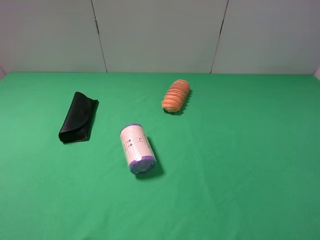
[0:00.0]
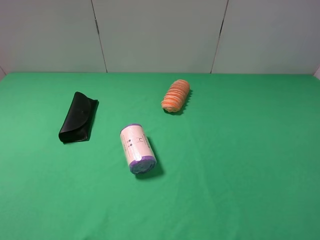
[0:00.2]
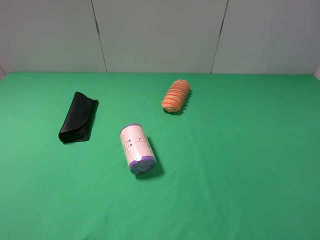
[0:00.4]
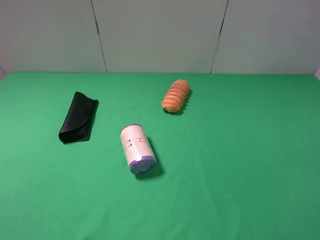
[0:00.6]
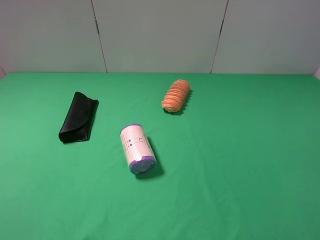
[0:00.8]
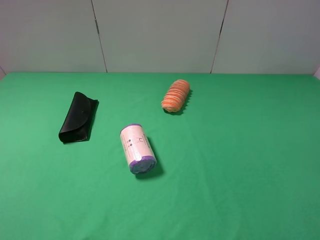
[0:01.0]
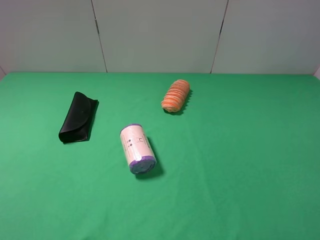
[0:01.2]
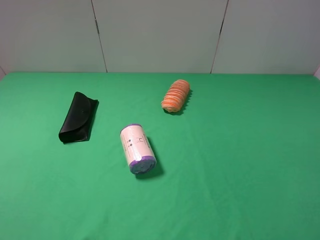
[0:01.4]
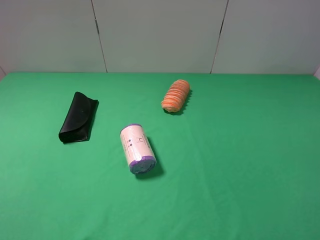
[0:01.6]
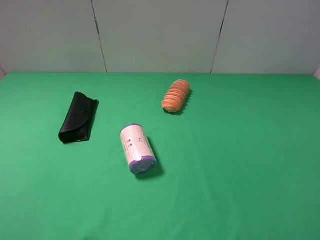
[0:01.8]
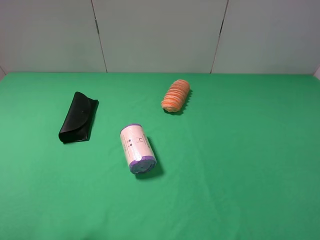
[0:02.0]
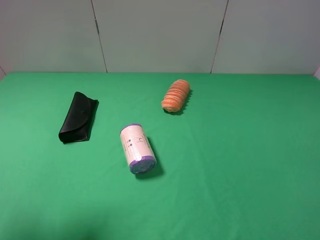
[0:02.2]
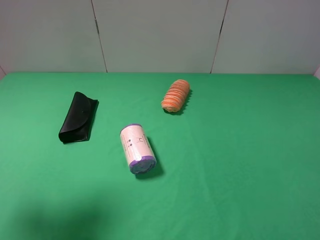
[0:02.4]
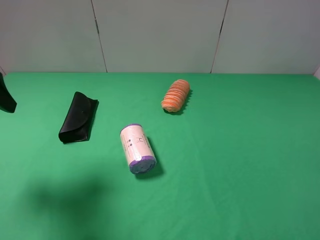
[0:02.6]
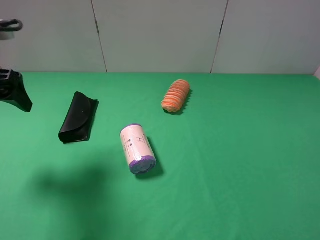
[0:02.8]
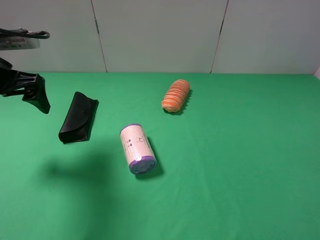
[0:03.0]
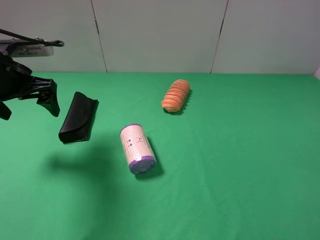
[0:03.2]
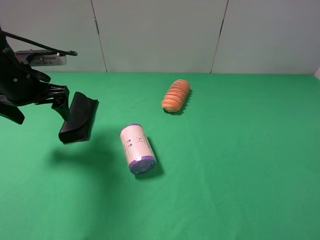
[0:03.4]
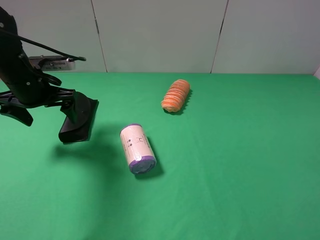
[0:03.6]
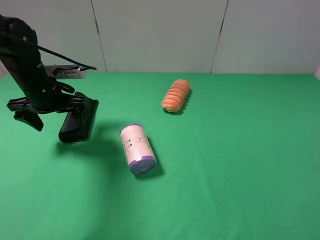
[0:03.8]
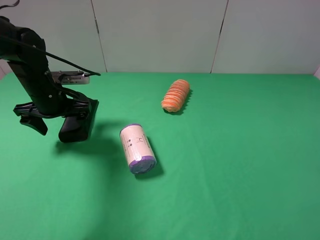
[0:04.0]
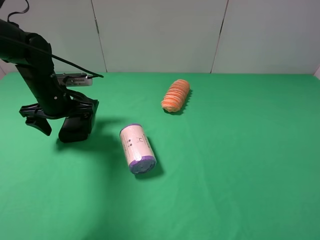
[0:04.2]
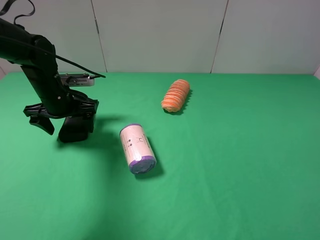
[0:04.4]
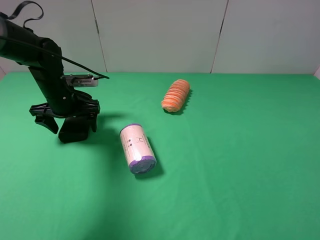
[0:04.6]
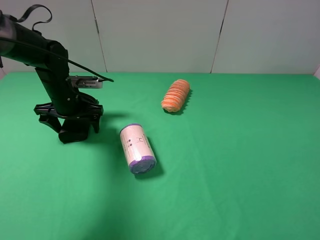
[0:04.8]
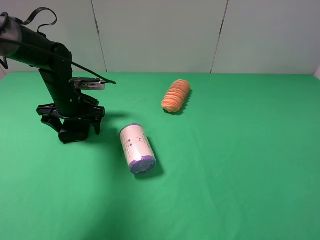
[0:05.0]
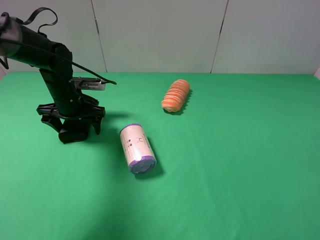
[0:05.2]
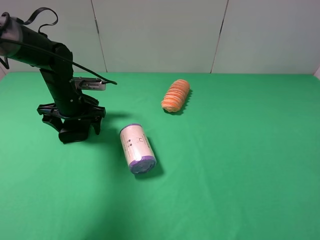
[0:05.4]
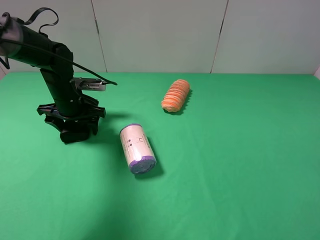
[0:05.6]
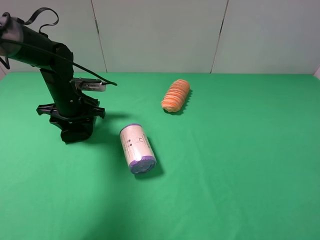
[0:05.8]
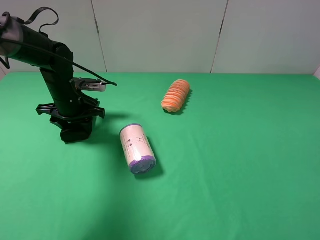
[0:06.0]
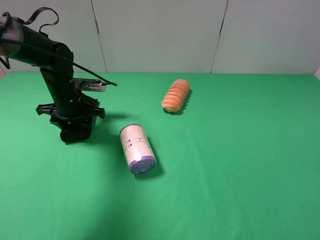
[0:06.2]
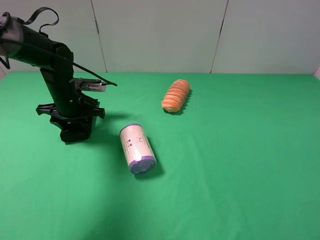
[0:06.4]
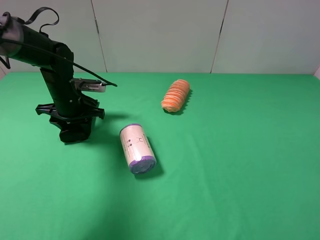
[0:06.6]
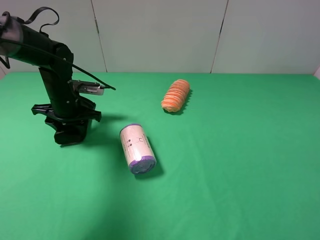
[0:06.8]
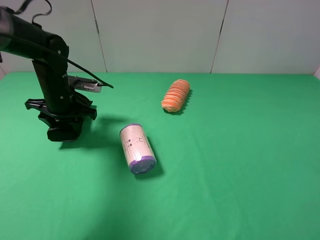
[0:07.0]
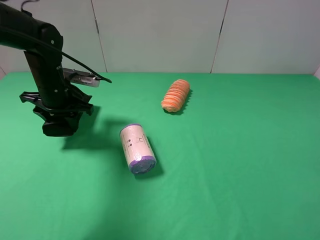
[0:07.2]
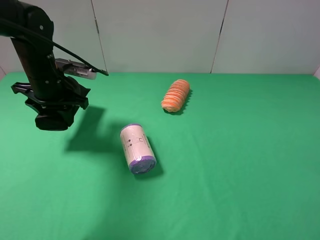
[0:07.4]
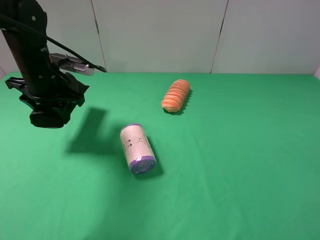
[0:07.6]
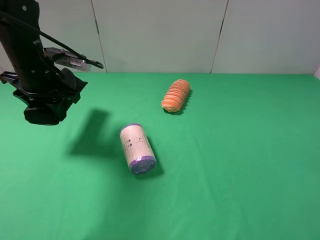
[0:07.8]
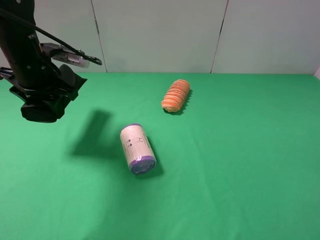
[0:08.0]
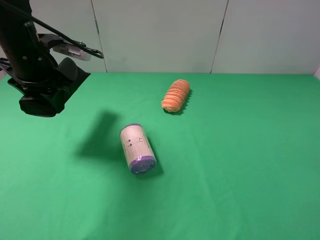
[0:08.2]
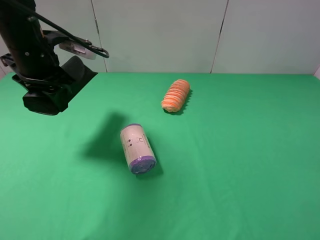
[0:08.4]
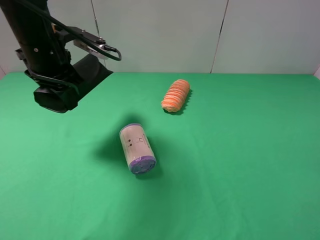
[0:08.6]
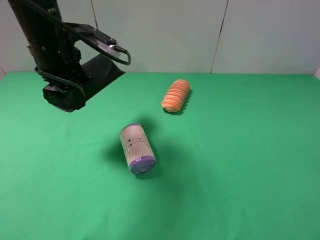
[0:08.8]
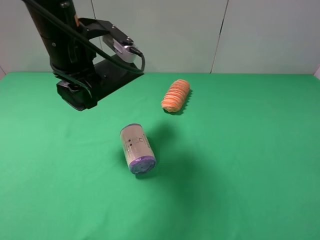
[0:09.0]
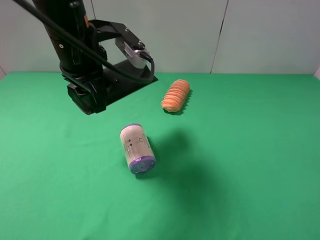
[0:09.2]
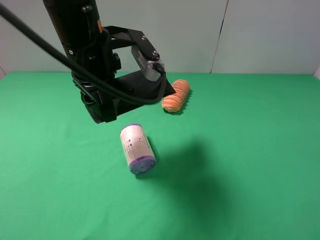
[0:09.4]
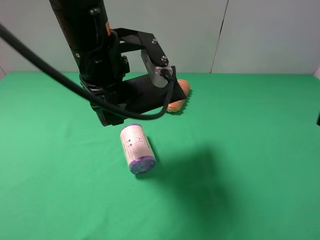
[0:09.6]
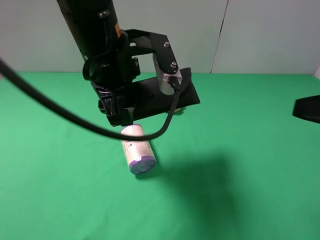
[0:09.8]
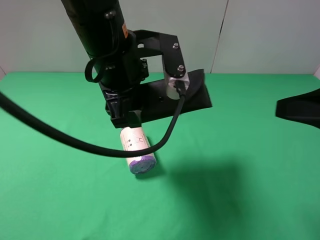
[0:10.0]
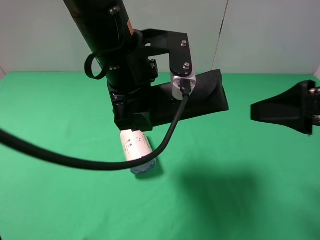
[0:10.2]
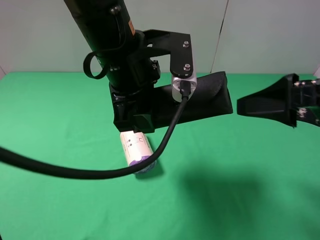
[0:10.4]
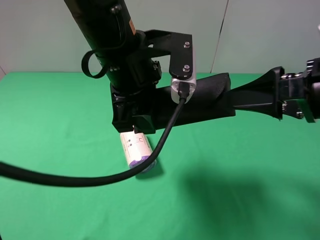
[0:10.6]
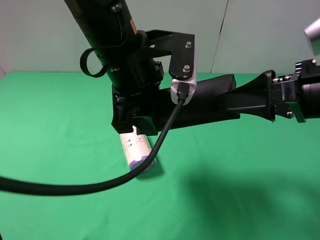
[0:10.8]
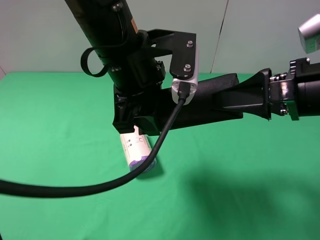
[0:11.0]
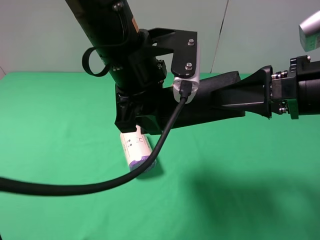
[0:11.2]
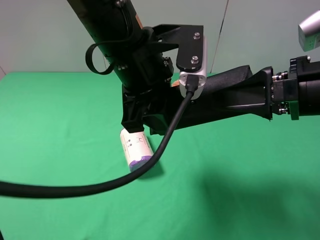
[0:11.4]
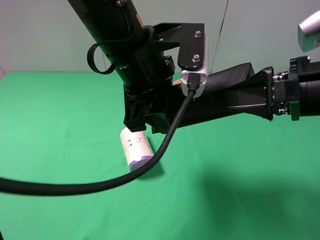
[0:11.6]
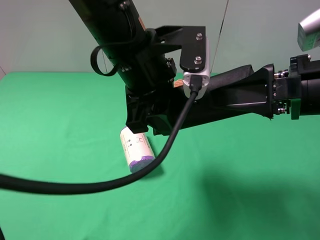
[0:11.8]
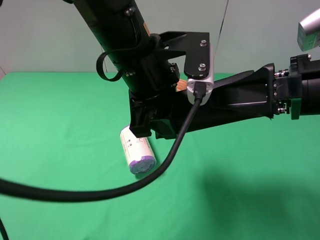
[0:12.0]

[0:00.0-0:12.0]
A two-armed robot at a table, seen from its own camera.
Task of the whole recording: use the left gripper to pick up the item and transfer it from the left gripper to the right gripper.
Step, 0:00.0 to 0:05.8: Use the left gripper to grab the eyeglass case on the left side of the table.
0:01.6 to 0:03.0: The left gripper moves forward, some 25 cm.
0:03.0 to 0:04.4: The left gripper moves downward, forward and to the right, some 15 cm.
0:04.4 to 0:06.0: The left gripper closes its fingers.
0:06.0 to 0:07.6: The left gripper goes some 10 cm upward.
0:07.6 to 0:09.0: The left gripper heads to the right and upward, covering approximately 10 cm.
0:09.0 to 0:10.4: The left gripper heads to the right and backward, covering roughly 10 cm. The right gripper is displaced forward by approximately 15 cm.

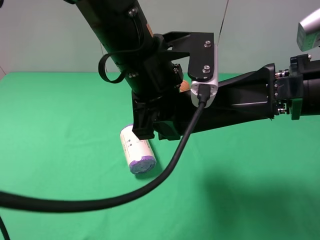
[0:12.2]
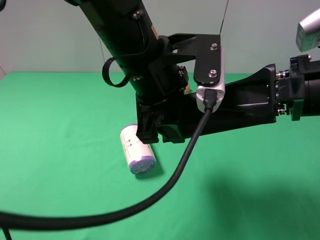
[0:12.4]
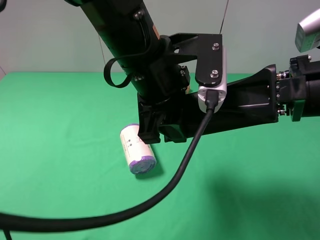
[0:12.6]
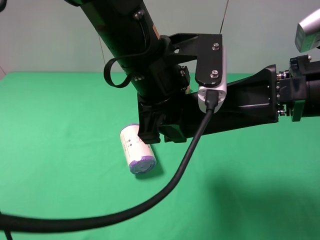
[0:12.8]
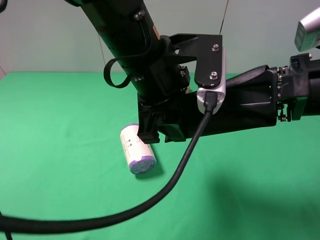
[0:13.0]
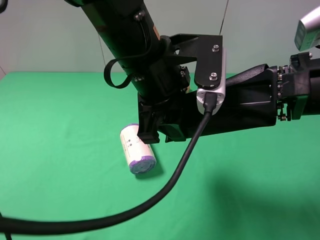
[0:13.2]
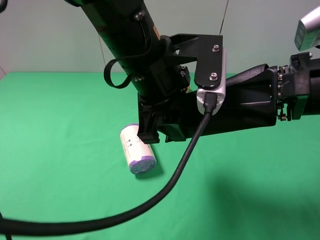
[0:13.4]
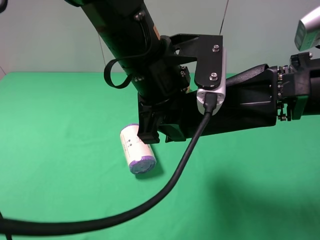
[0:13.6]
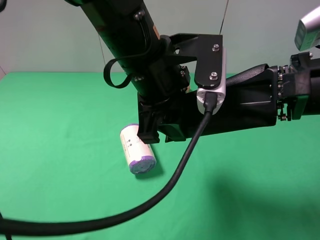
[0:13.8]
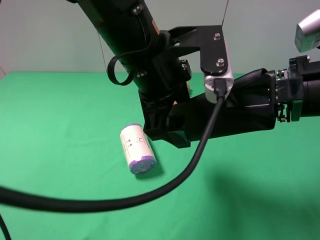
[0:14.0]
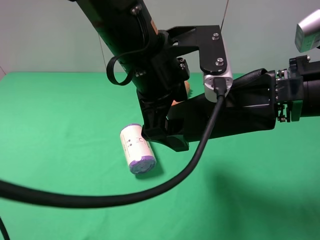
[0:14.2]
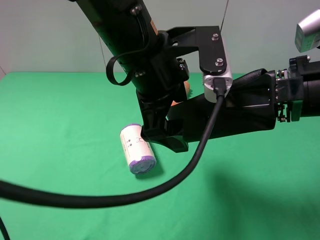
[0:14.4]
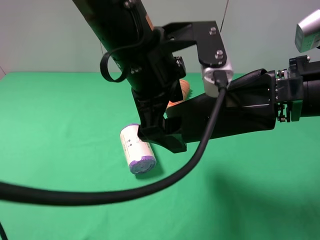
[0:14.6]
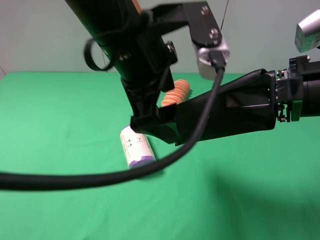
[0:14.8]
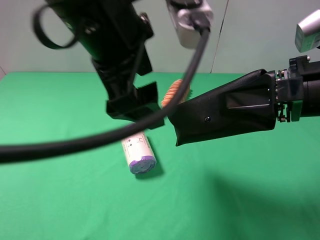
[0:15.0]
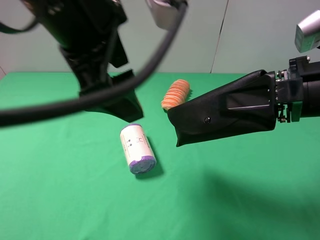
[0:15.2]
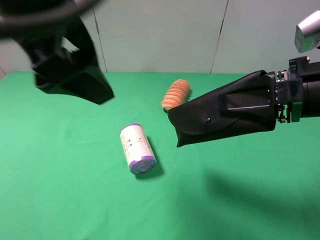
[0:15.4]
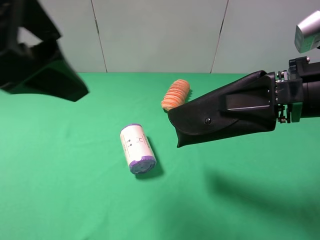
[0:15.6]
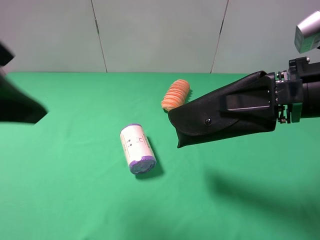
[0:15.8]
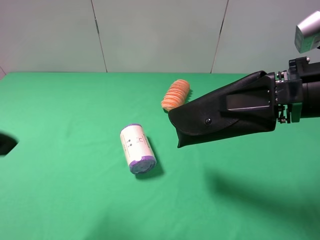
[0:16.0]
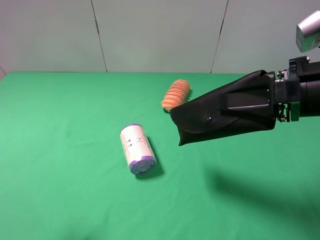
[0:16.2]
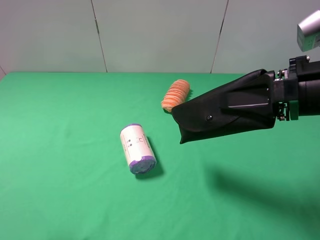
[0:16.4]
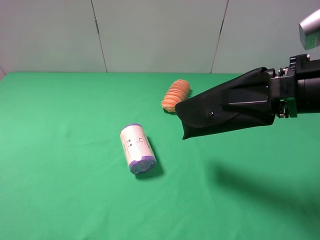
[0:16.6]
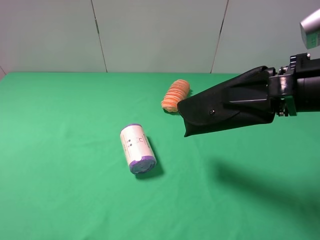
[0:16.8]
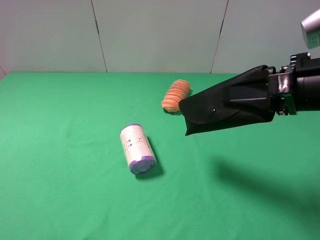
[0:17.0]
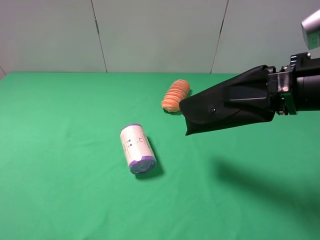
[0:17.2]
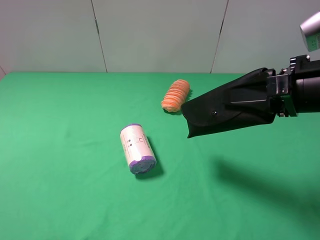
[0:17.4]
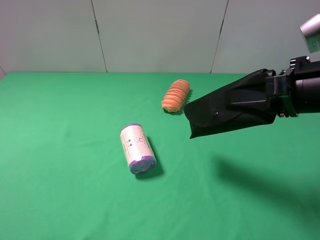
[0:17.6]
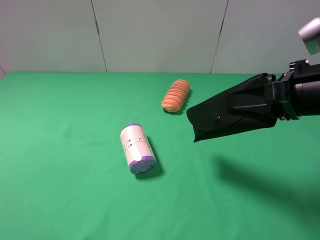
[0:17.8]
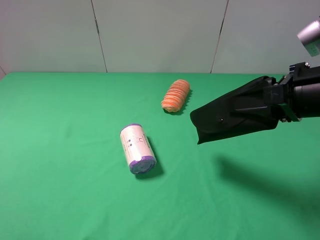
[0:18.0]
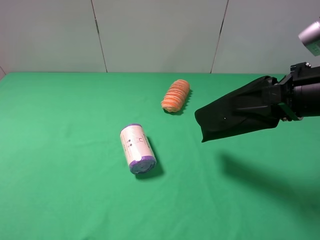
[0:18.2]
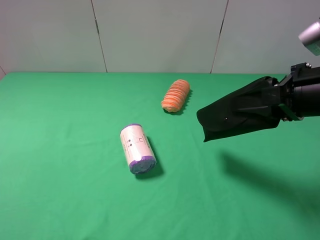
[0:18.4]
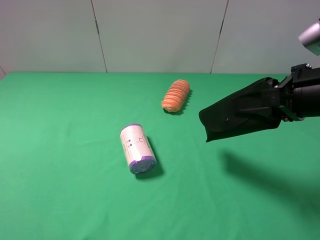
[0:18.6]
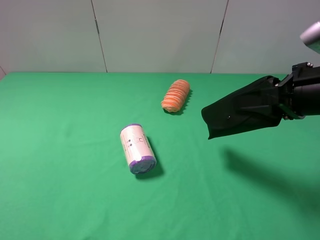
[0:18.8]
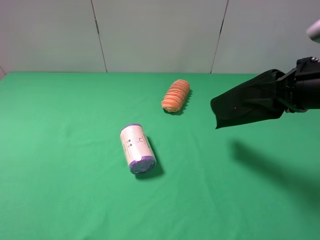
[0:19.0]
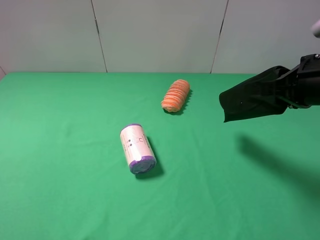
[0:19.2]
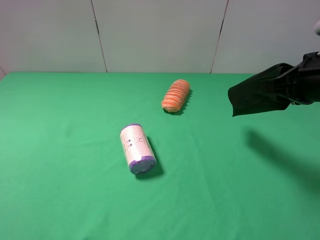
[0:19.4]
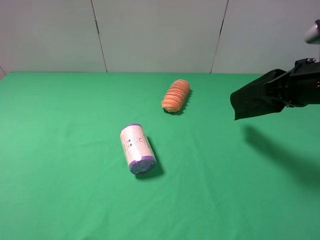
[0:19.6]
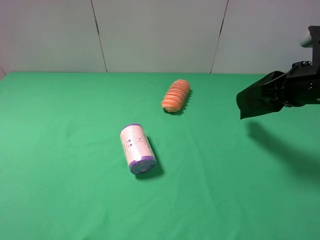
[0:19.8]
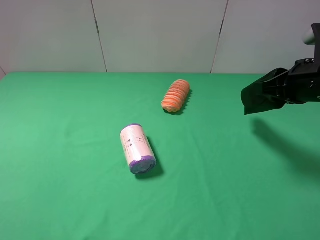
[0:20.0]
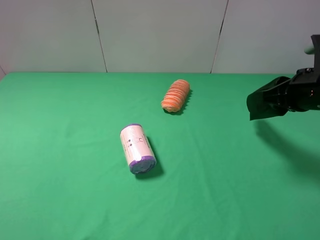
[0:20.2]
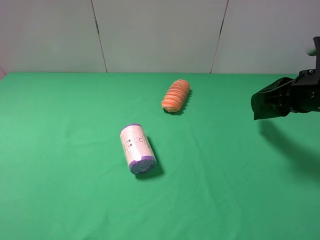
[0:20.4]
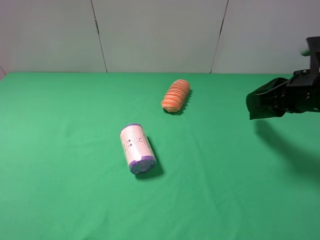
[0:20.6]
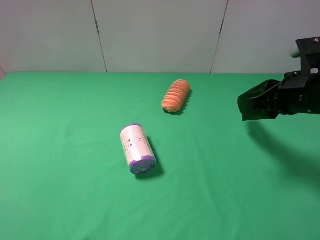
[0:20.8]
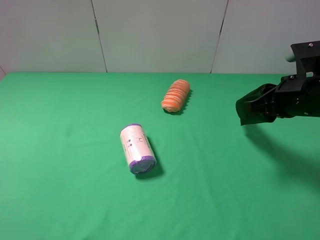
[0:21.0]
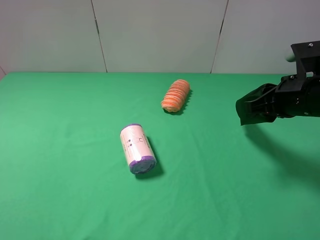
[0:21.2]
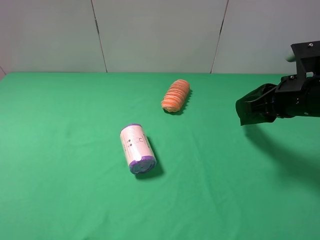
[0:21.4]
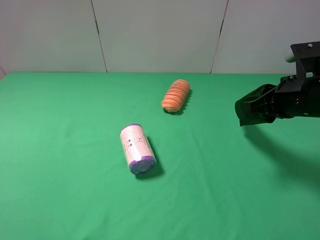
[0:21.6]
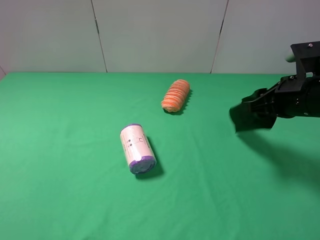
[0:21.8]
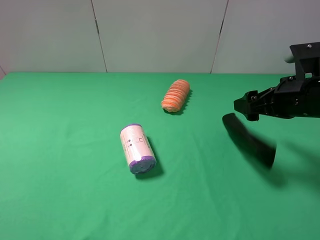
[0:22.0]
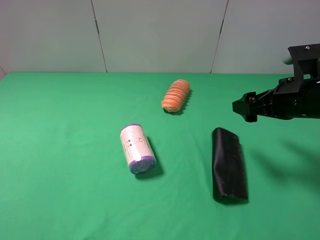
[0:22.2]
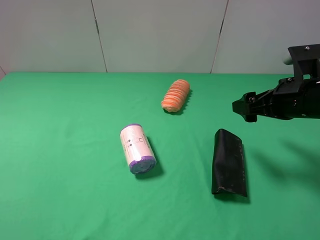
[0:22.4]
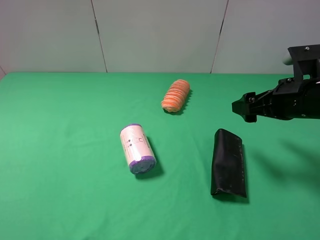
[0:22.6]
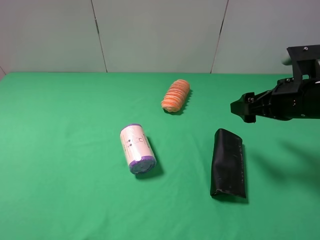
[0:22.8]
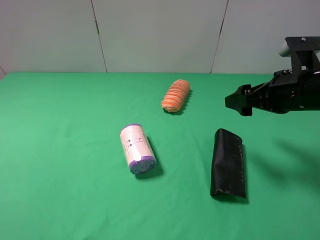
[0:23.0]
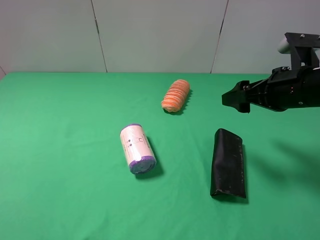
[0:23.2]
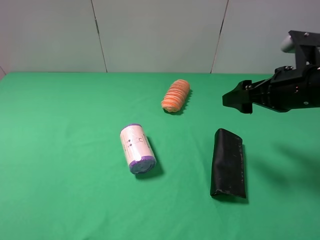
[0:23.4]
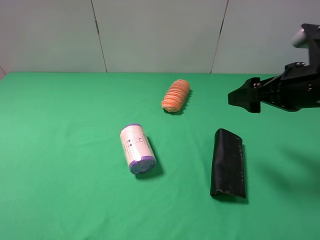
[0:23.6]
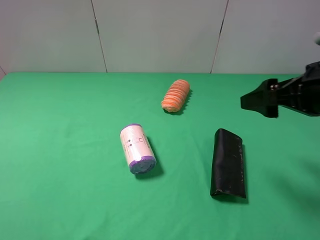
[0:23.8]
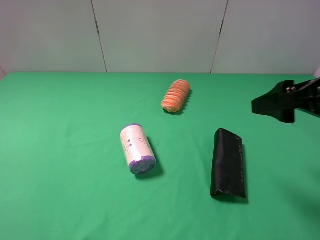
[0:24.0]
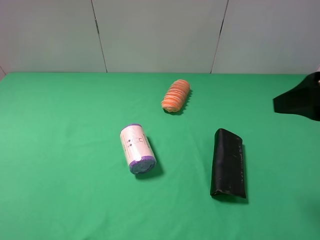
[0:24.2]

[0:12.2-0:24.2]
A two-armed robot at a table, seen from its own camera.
Task of the whole recording: use the left gripper to pick up the item and transfer it from the left gripper to the right gripper.
Step, 0:12.2 to 0:14.4: Pass the eyeglass case to the right gripper.
Step, 0:14.6 to 0:23.8: The right gripper places eyeglass case on the right side of the table.
0:12.2 to 0:13.8: The right gripper closes up.
0:13.8 to 0:15.2: The left gripper is displaced upward and to the left by about 10 cm, and opens.
0:15.2 to 0:16.6: The left gripper shifts roughly 30 cm to the left and backward.
0:18.2 to 0:19.8: The right gripper heads forward, covering about 5 cm.
0:19.8 to 0:21.2: The grippers move only a little.
0:21.2 to 0:22.6: The right gripper opens up.
0:22.6 to 0:24.2: The right gripper shifts some 15 cm upward and backward.
